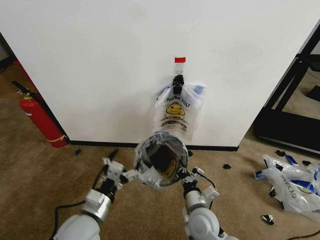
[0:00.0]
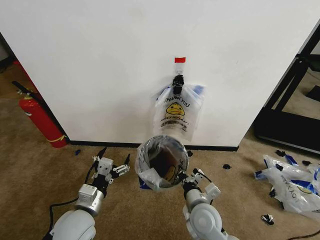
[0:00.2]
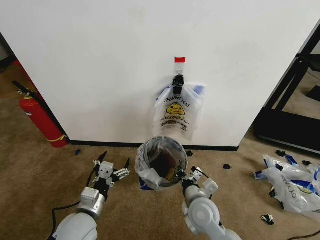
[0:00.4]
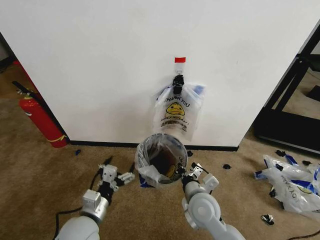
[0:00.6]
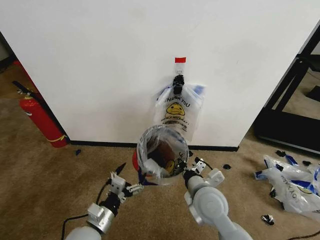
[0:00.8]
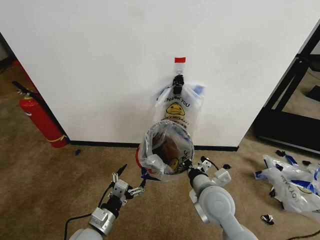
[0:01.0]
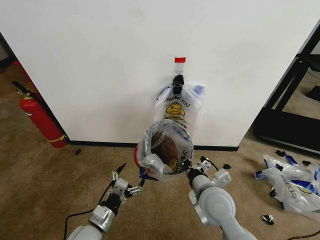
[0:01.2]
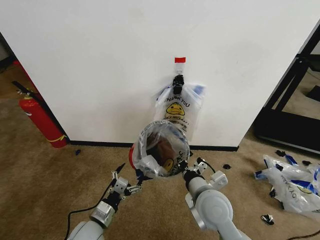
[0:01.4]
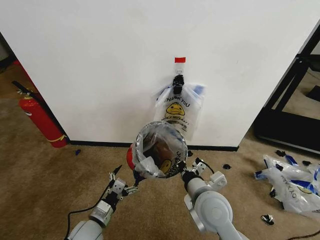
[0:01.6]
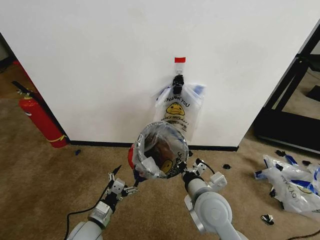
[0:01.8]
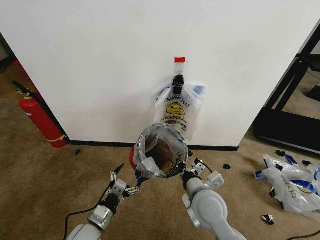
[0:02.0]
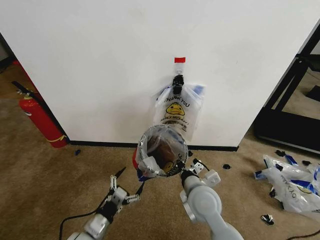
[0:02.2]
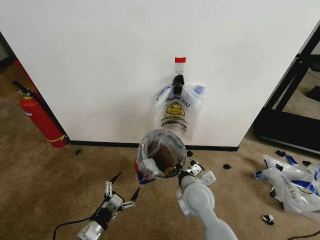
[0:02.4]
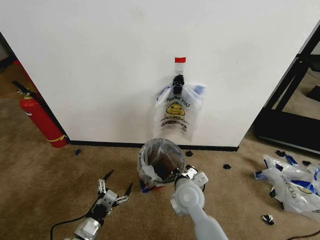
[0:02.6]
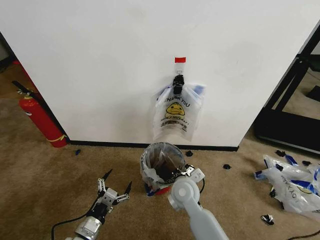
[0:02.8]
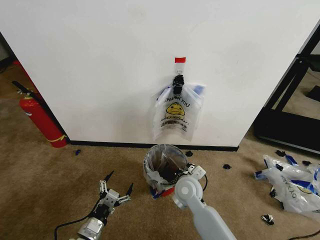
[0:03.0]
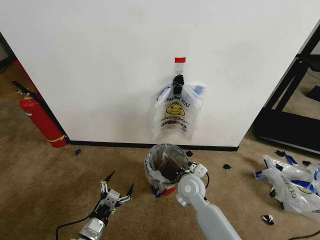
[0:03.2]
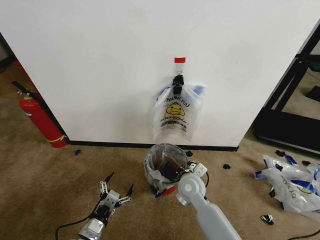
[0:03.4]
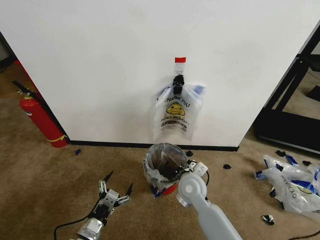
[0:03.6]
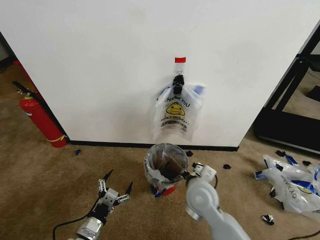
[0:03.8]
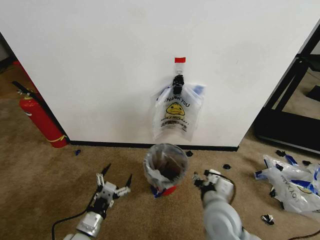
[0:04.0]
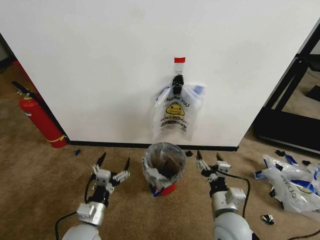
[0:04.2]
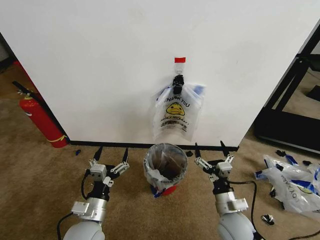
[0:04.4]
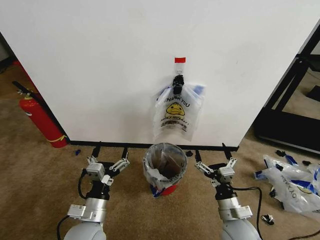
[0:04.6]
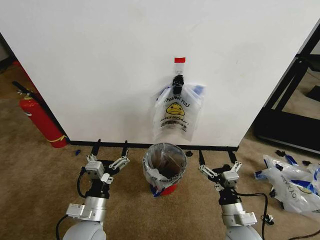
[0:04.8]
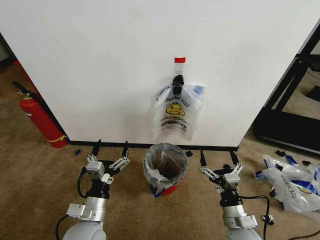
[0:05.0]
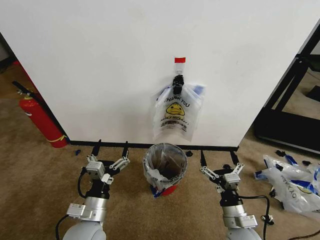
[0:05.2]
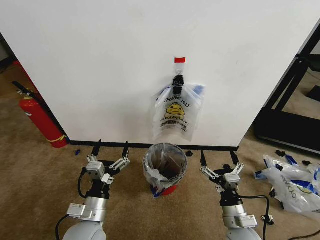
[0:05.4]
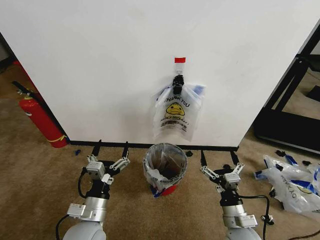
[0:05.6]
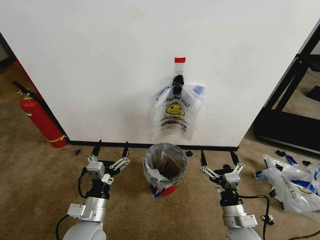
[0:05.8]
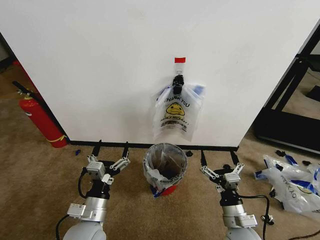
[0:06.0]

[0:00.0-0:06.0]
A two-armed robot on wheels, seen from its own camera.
Task of the whole recording: Pick up the garbage bag from the wall and place it over the trash bin.
0:00.0 to 0:01.6: The left gripper shifts approximately 15 cm downward. The right gripper travels upward by approximately 15 cm.
0:01.6 to 0:03.0: The left gripper changes place by about 5 cm; the right gripper goes approximately 10 cm forward and downward.
0:03.0 to 0:04.4: The left gripper heads upward, covering about 10 cm, while the right gripper travels to the right and backward by some 15 cm, and opens its fingers.
0:04.4 to 0:06.0: There are only small adjustments of the grippers.
